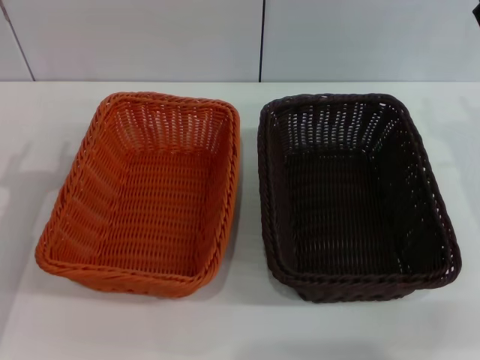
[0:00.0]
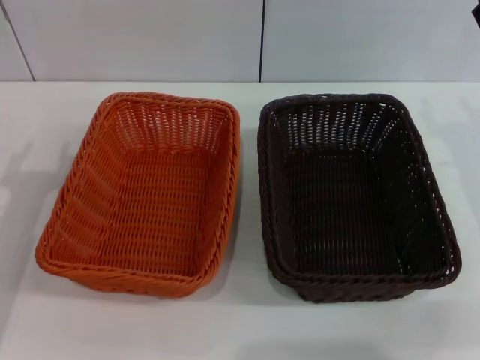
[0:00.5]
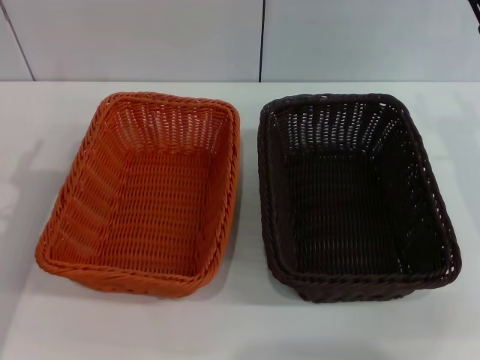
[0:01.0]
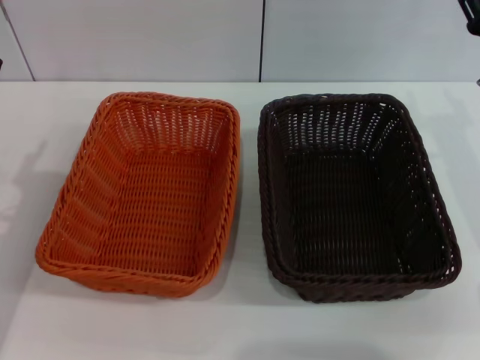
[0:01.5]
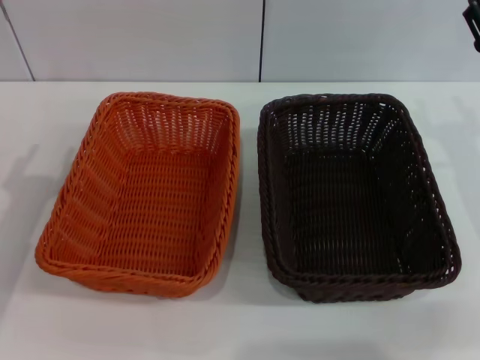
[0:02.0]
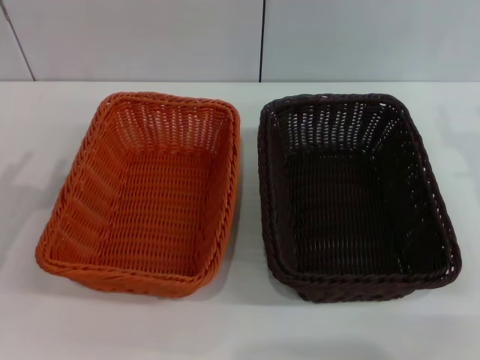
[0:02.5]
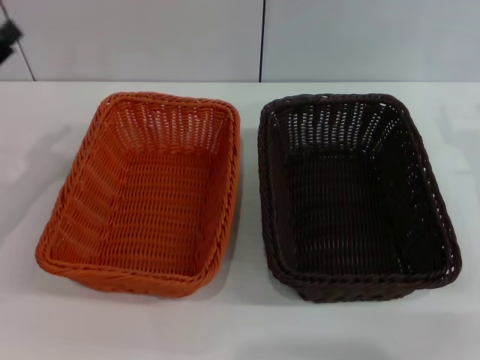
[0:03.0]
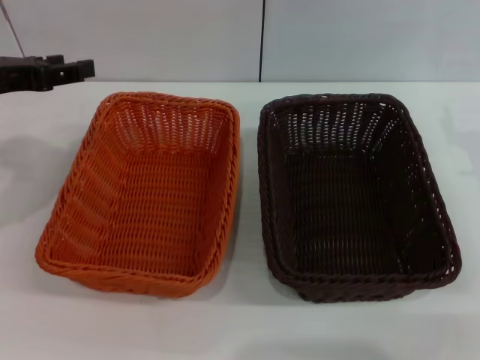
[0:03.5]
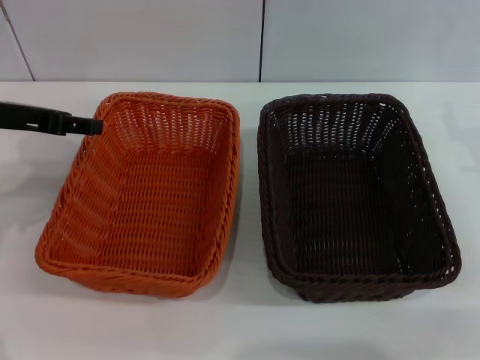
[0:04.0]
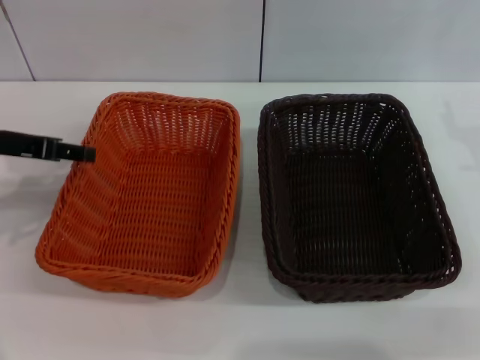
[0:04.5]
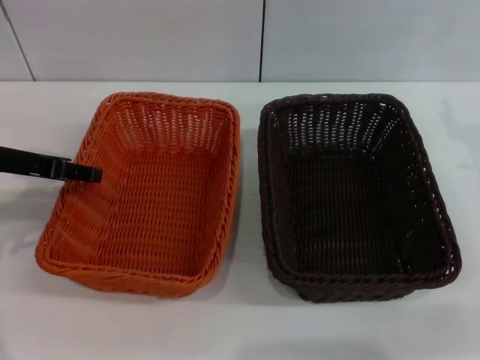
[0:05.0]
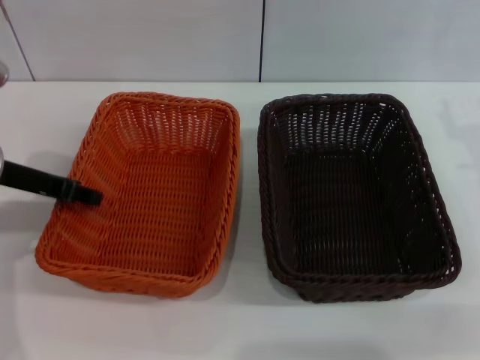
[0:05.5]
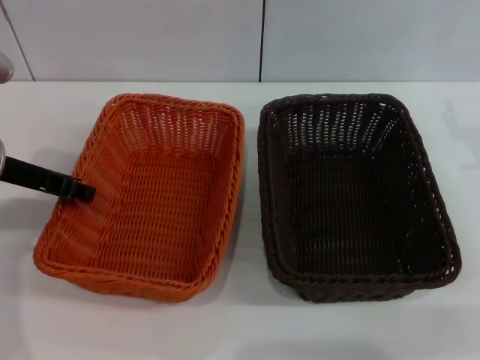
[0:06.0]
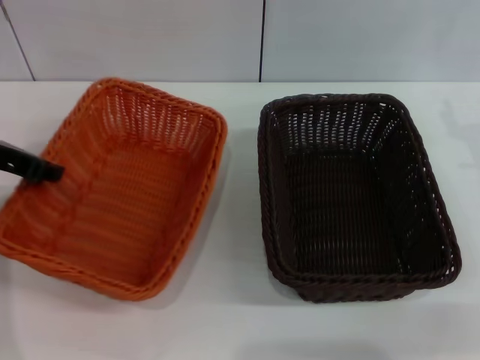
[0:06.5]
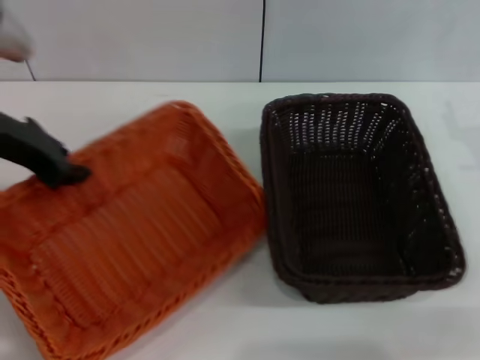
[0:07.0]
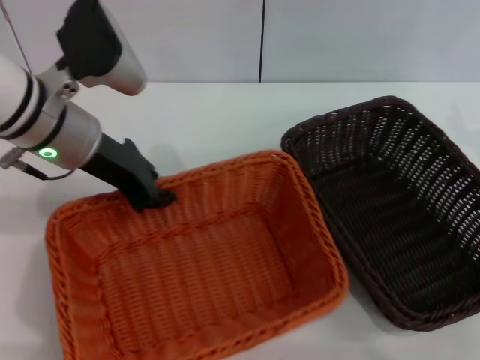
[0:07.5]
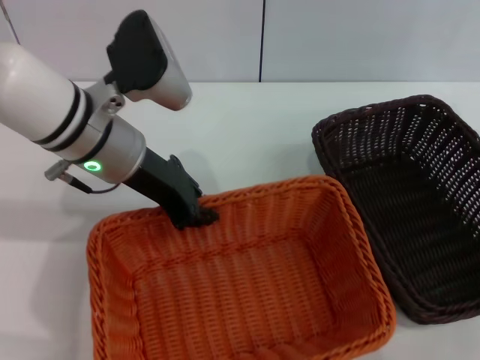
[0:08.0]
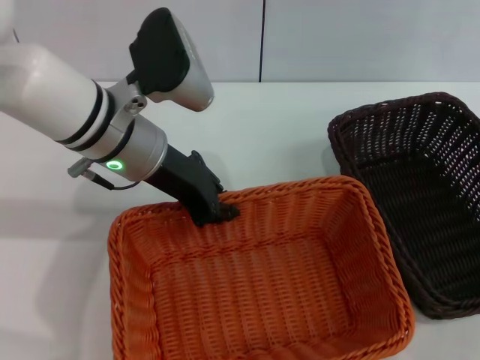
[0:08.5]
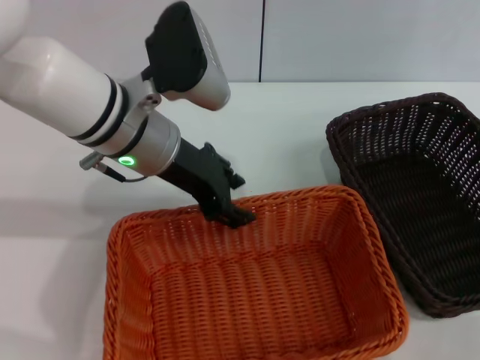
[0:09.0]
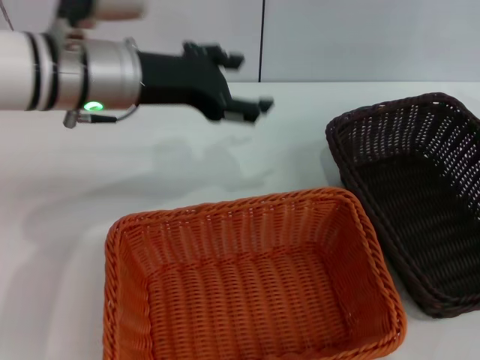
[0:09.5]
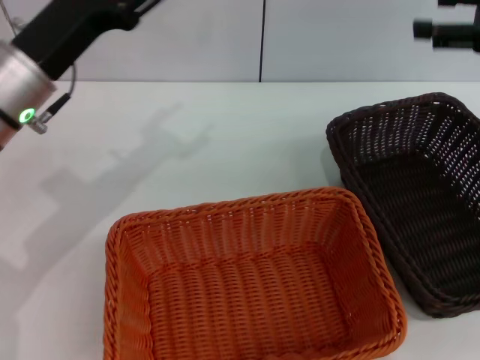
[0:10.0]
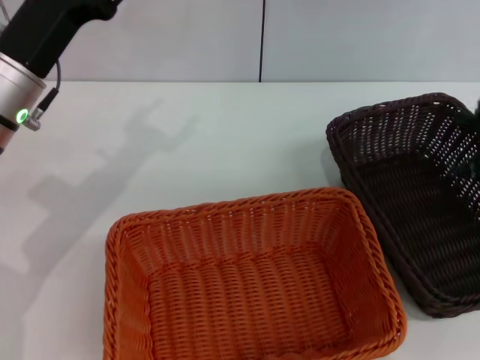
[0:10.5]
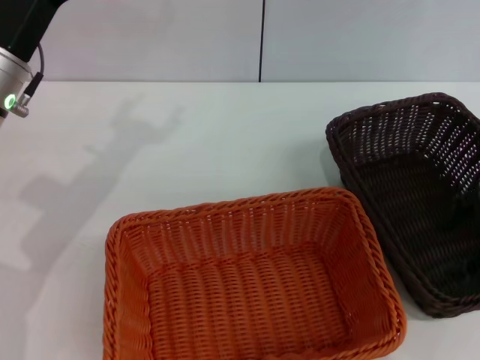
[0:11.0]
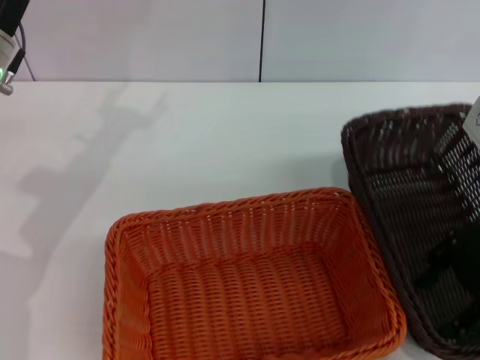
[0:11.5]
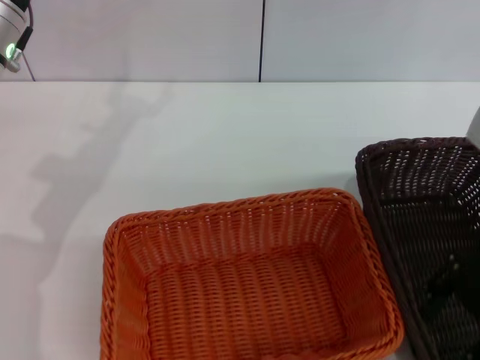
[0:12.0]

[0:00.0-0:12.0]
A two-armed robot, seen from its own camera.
Step, 0:00.0 to 0:06.5: Pick up the light basket with the left gripper.
Step, 0:07.0 to 0:09.0: Place the light basket in the center of view with the left gripper.
0:02.0 to 0:04.0: The left gripper goes approximately 15 cm upward and forward.
0:04.0 to 0:06.0: The left gripper closes its fingers.
0:06.0 to 0:08.0: The left gripper heads to the right, covering approximately 15 cm.
0:08.0 to 0:10.0: The right gripper heads upward, covering about 15 cm, while the left gripper travels to the left by approximately 5 cm, and opens up.
0:10.0 to 0:12.0: The left gripper ends up about 5 cm from where it was, while the right gripper is displaced to the left and backward by some 10 cm.

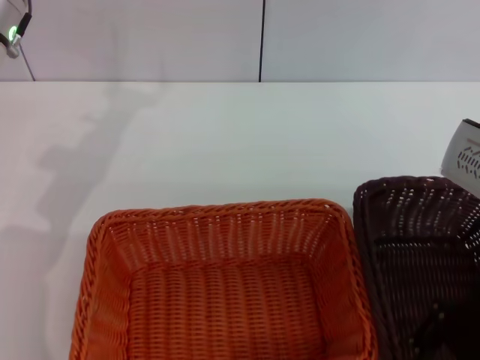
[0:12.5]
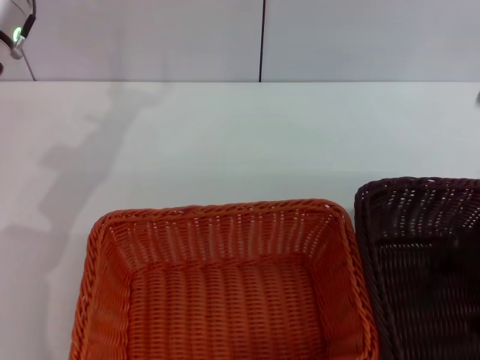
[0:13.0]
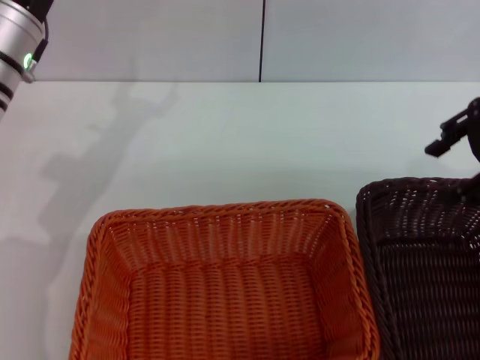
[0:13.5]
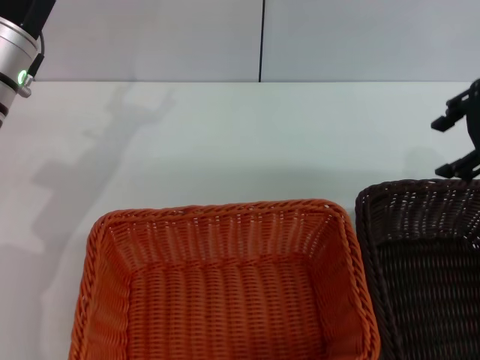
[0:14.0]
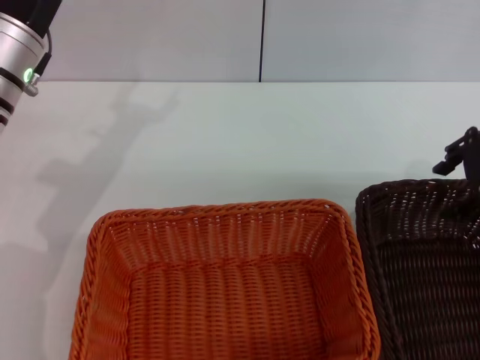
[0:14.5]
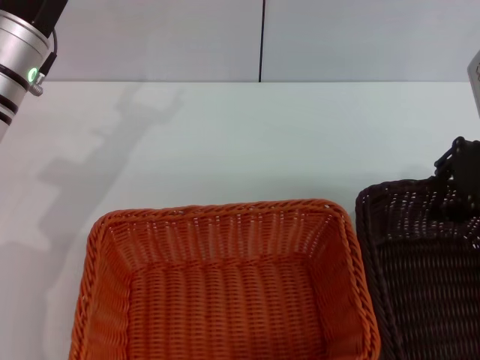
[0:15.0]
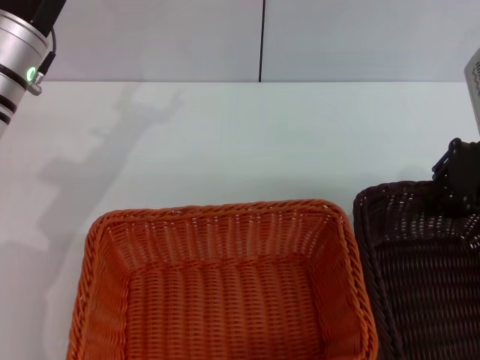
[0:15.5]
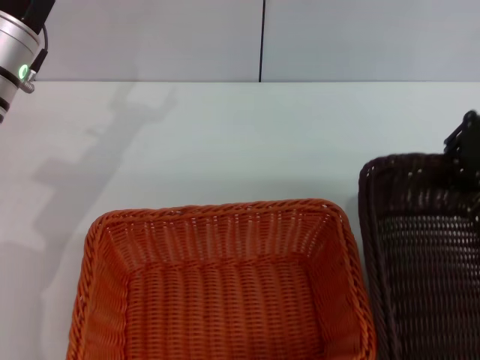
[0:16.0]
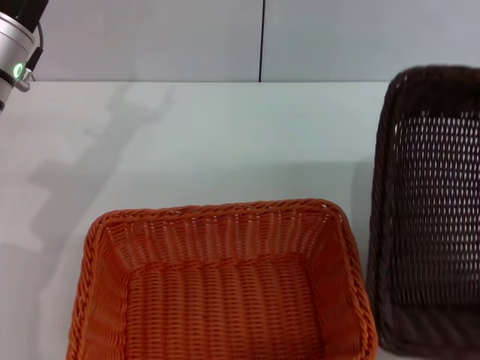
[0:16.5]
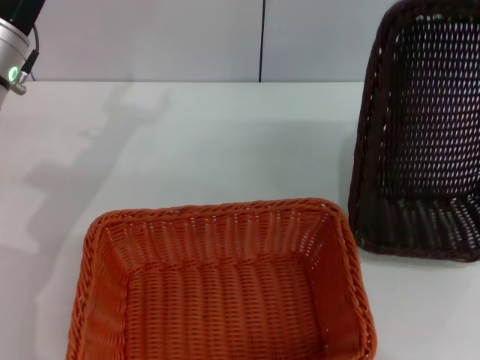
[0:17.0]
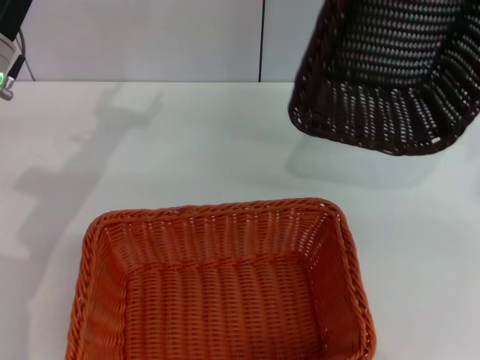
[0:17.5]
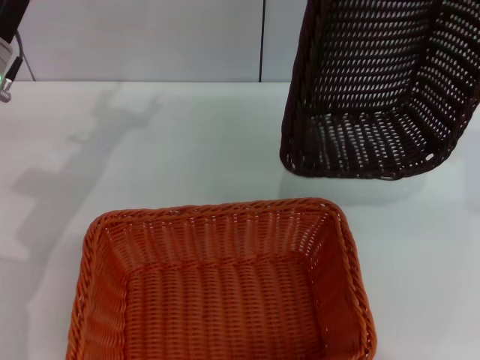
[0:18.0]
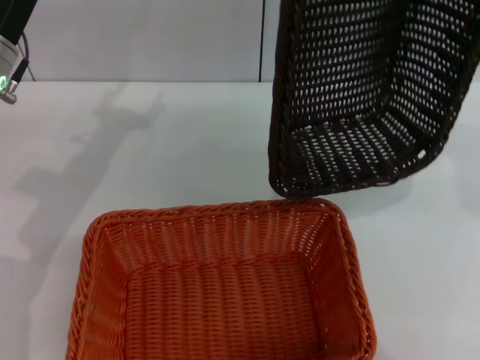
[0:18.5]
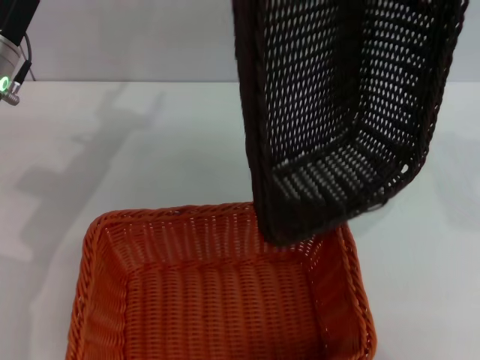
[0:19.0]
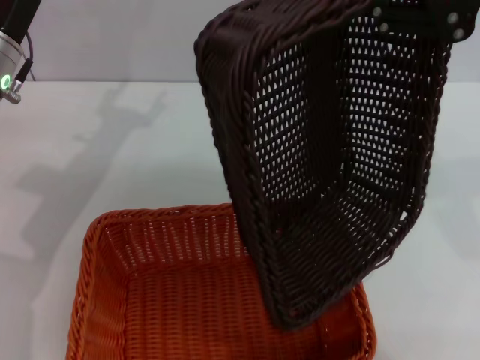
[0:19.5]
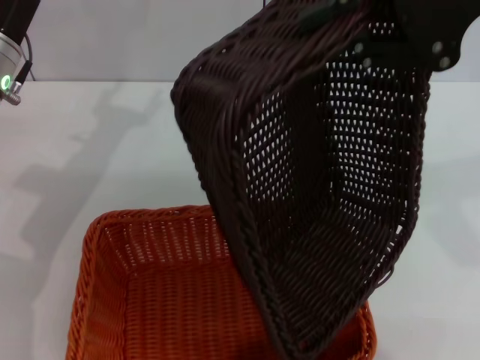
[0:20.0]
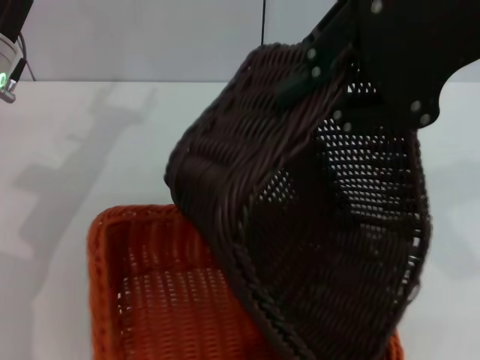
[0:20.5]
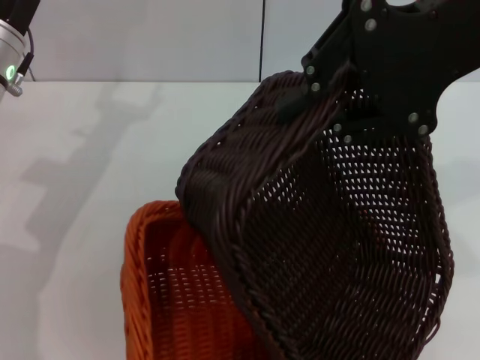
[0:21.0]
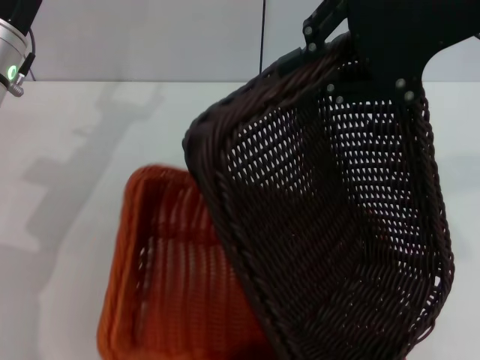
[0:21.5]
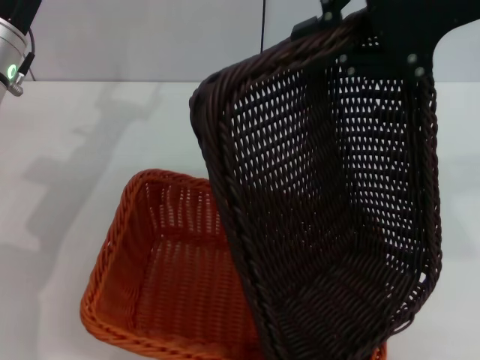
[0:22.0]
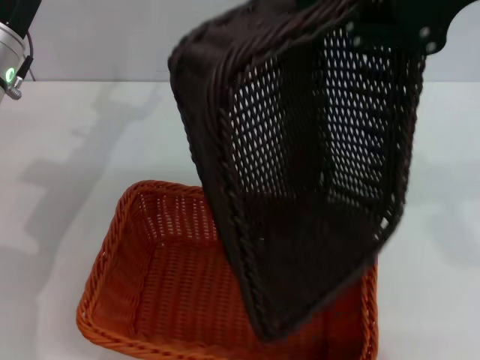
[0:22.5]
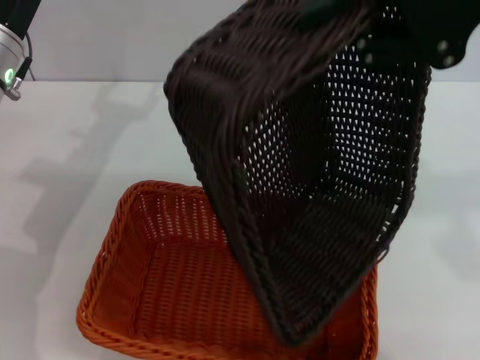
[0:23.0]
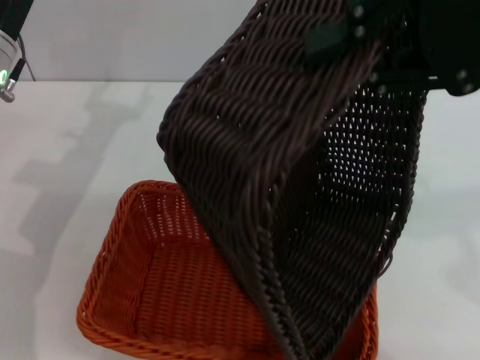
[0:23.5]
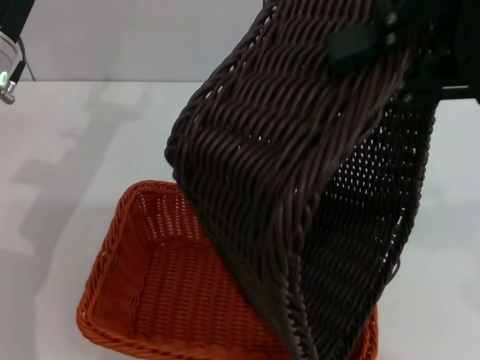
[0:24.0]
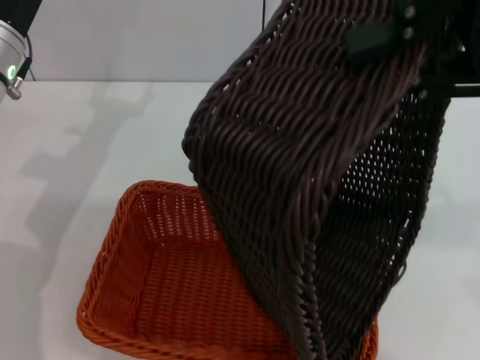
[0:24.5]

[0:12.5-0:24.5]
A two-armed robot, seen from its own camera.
Step, 0:12.5 to 0:16.0: Pick up the dark basket with the right gripper.
0:12.5 to 0:14.5: The right gripper goes about 10 cm forward and to the right.
0:14.5 to 0:16.5: The right gripper shifts approximately 10 cm upward, and closes its fingers.
0:16.5 to 0:18.5: The right gripper moves upward, approximately 5 cm.
0:18.5 to 0:20.5: The right gripper heads to the left and backward, covering some 10 cm.
0:22.5 to 0:24.5: The right gripper travels backward by some 5 cm.

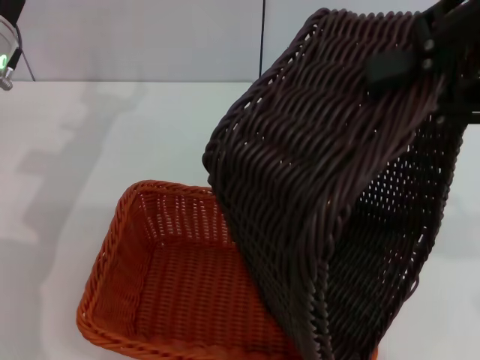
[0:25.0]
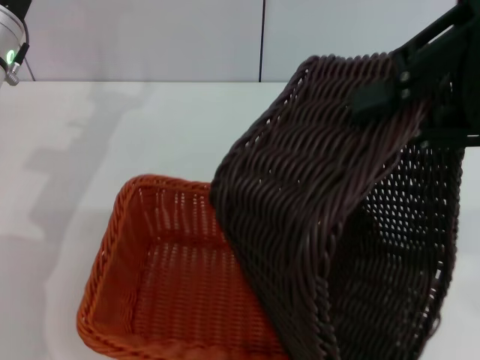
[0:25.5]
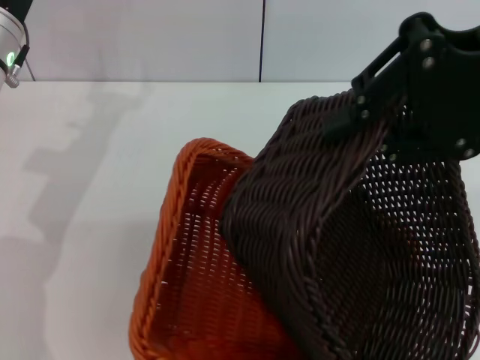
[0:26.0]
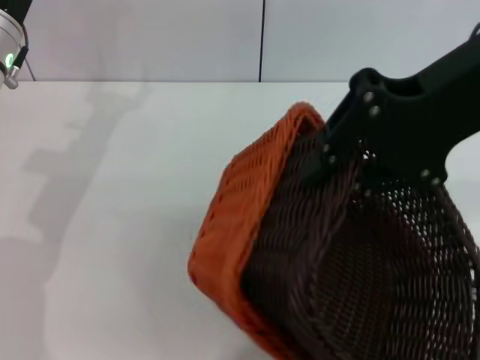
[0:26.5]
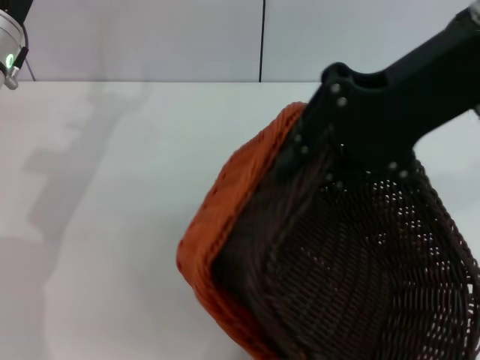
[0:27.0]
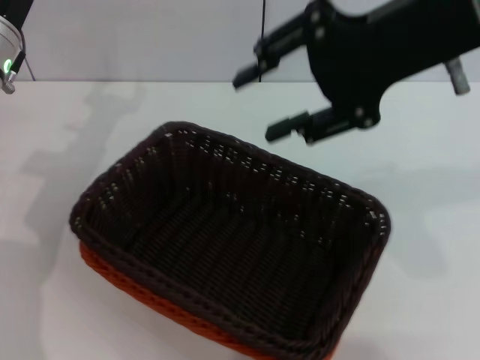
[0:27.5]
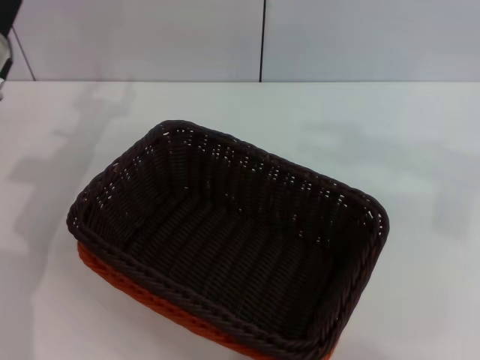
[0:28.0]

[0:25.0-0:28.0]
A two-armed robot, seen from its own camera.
Step, 0:25.0 to 0:27.0: Place the dark basket on the light basket with the right gripper.
0:25.0 to 0:26.5: The right gripper heads forward and to the left, covering roughly 5 cm.
0:26.5 to 0:28.0: The left gripper closes its fingers. The right gripper is displaced to the right and forward by about 10 cm, and opens up.
